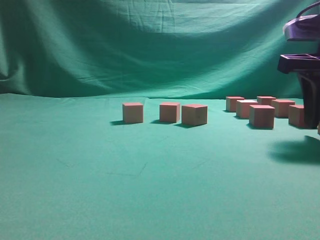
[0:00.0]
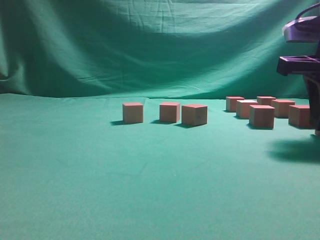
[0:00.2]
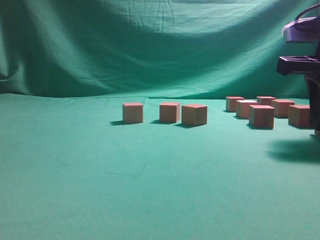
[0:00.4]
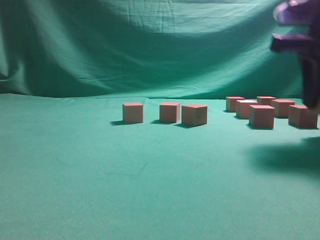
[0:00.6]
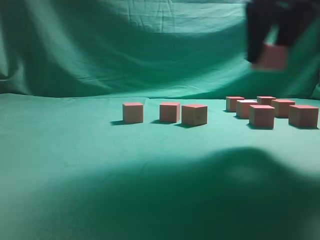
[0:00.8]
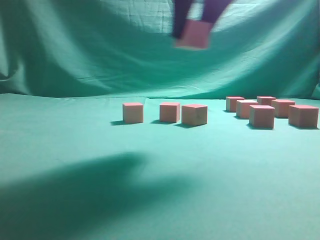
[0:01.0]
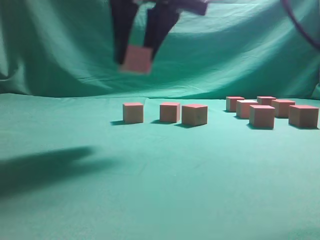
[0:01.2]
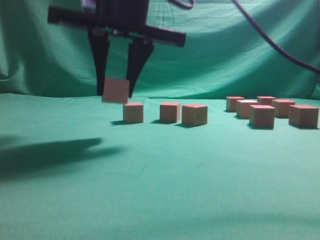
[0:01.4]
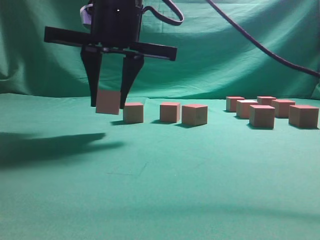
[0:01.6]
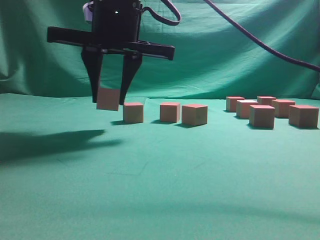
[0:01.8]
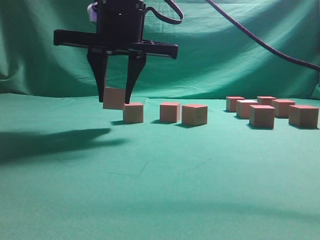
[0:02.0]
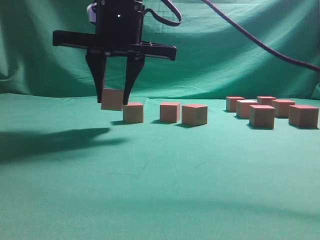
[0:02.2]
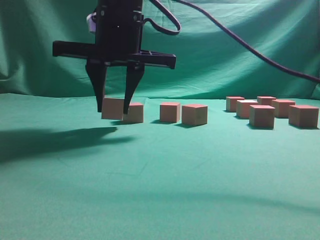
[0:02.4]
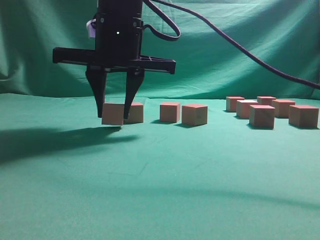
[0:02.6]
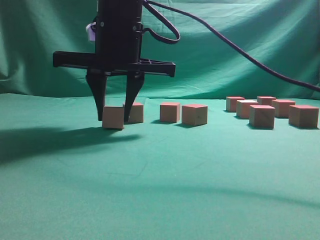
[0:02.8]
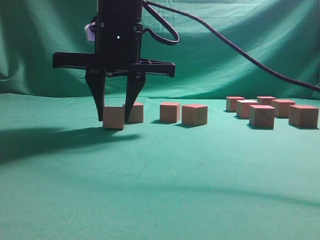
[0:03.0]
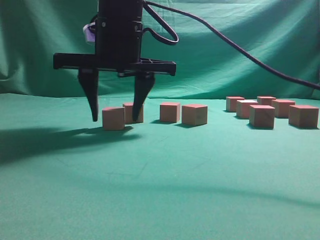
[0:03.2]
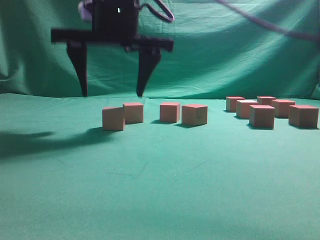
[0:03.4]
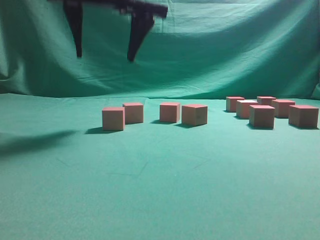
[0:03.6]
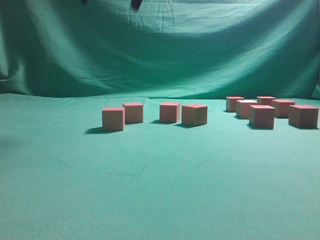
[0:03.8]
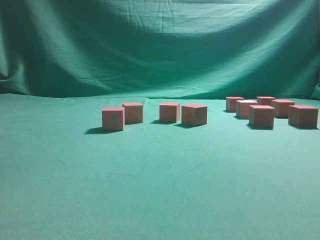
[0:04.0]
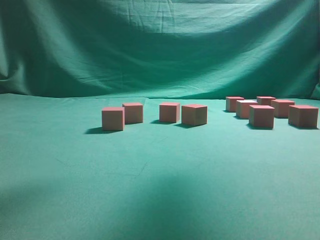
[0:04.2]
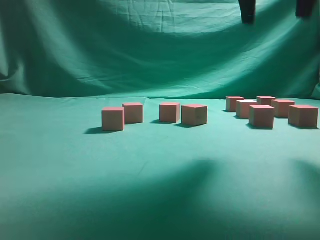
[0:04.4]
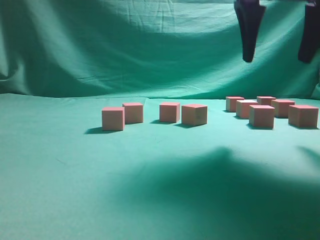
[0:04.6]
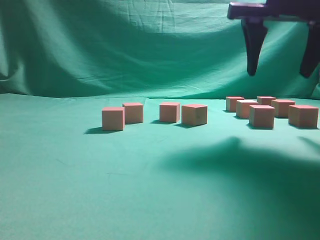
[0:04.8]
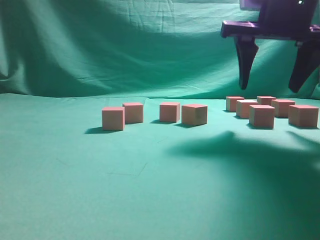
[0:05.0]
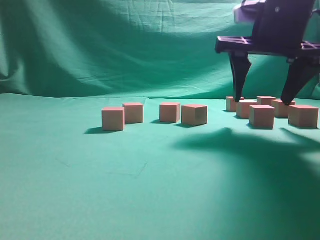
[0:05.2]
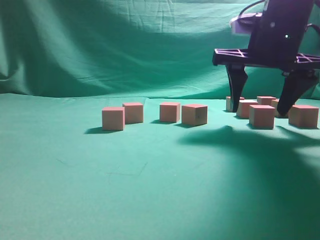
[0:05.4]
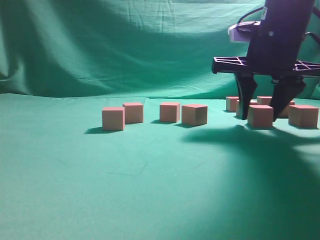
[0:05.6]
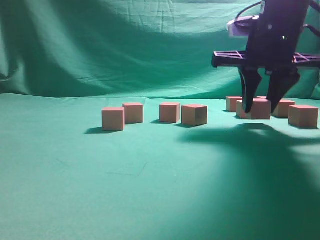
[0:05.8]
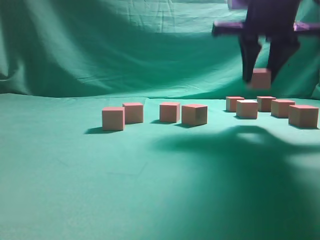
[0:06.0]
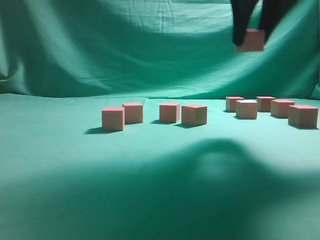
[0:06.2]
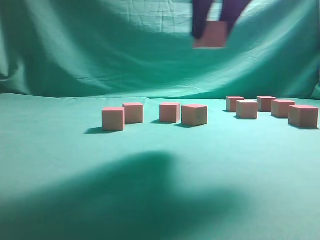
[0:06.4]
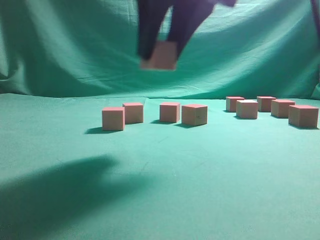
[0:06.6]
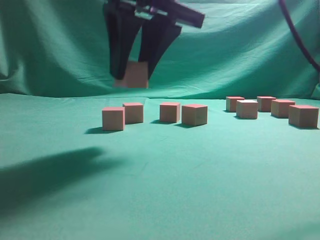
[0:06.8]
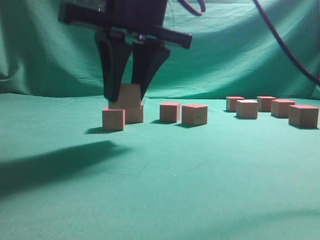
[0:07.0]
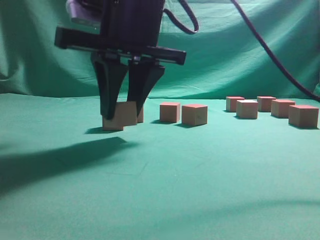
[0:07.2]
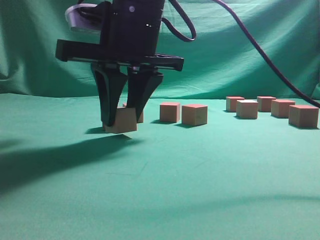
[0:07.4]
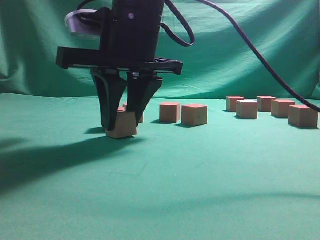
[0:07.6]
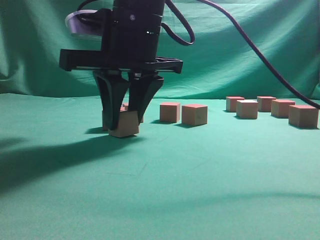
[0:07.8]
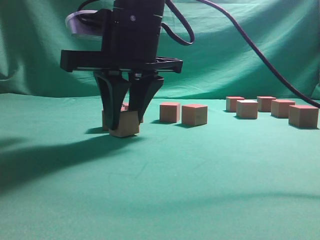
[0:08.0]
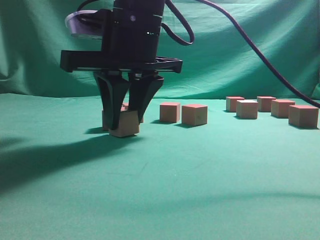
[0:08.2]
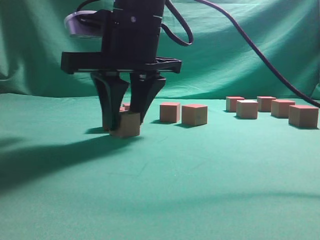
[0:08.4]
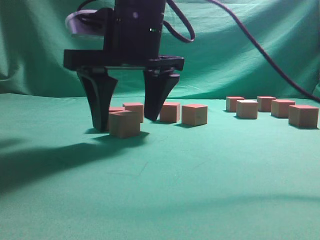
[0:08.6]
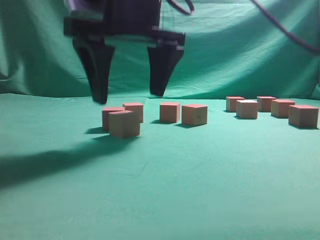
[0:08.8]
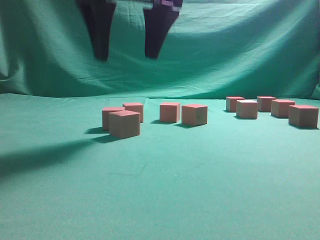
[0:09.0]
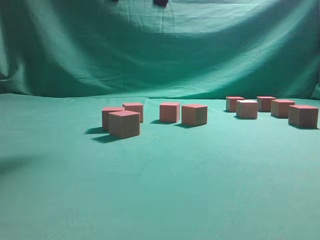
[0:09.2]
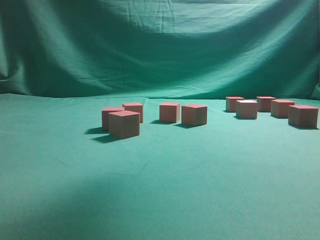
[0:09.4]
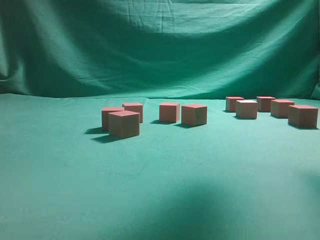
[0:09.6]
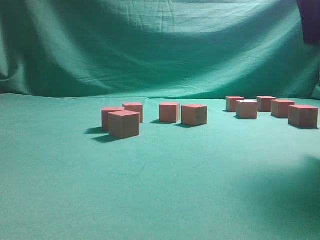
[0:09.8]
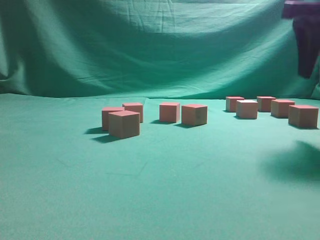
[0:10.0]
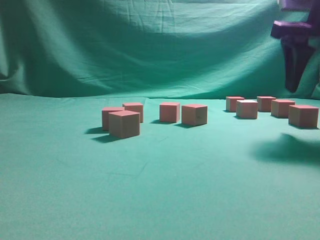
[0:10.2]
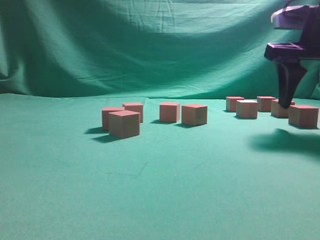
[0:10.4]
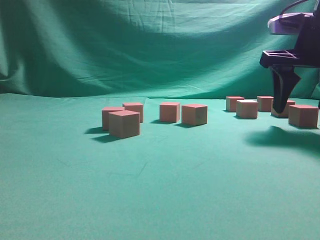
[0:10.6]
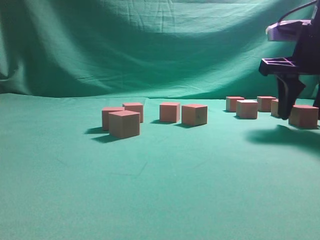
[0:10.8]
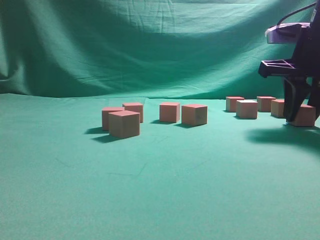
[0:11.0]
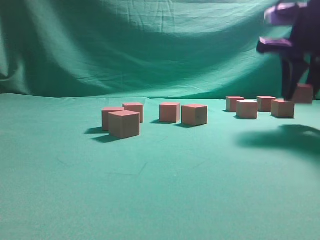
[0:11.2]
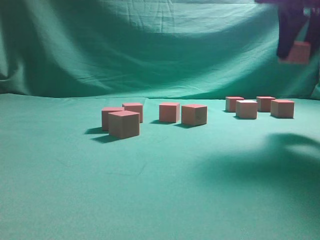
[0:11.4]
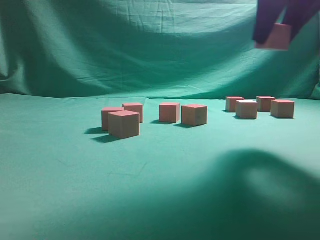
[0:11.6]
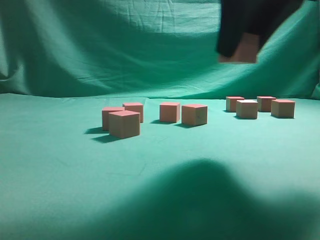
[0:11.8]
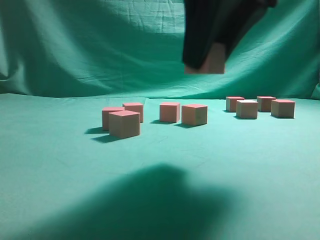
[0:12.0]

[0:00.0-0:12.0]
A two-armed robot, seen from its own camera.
Task of the whole recording: pick up the multiple cubes in two columns one by one and place them in another position on the table.
Step, 0:00.8 to 0:03.6: Place the block at the correct position to assemble the letter S.
Step, 0:03.8 to 0:06.0: Pick up the block on the table.
Step, 0:06.4 to 0:09.0: Place the block at the correct position to assemble the letter S.
Step, 0:09.2 to 0:11.4: Pick up the block on the table.
0:00.0 to 0:01.6: The right gripper goes approximately 30 cm to the left.
0:01.6 to 0:03.0: The grippers stay close to where they were, moving slightly.
0:03.0 to 0:04.4: The right gripper heads to the right and upward, covering roughly 25 cm, and opens.
0:04.4 to 0:06.0: The right gripper travels downward and forward by some 10 cm, and closes its fingers.
0:06.0 to 0:07.6: The right gripper is displaced to the left by about 20 cm.
0:07.6 to 0:09.0: The right gripper moves upward, about 10 cm, and opens up.
0:09.0 to 0:10.4: The right gripper shifts roughly 25 cm to the right.
0:10.4 to 0:12.0: The right gripper shifts about 20 cm to the left and backward, and closes its fingers.

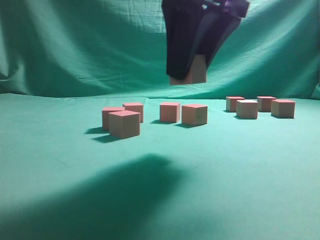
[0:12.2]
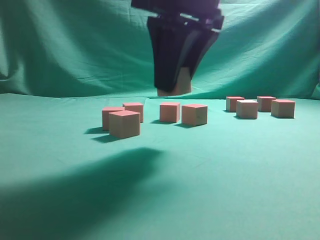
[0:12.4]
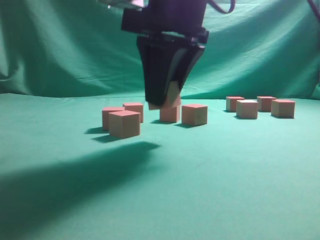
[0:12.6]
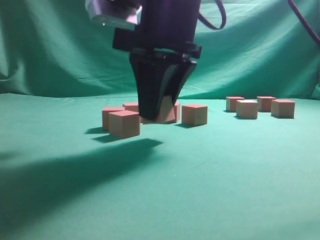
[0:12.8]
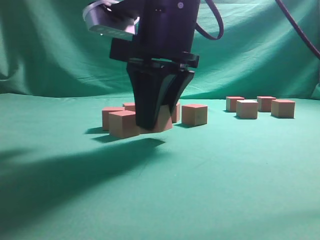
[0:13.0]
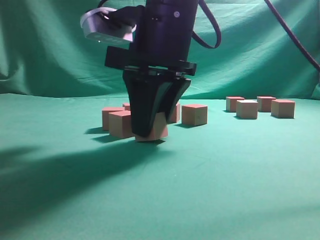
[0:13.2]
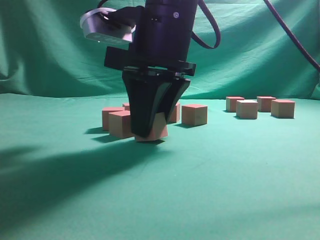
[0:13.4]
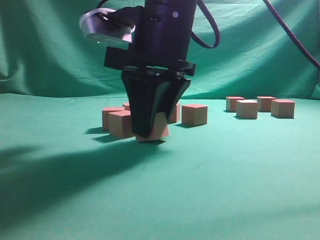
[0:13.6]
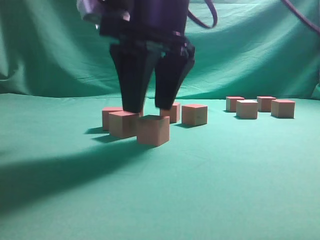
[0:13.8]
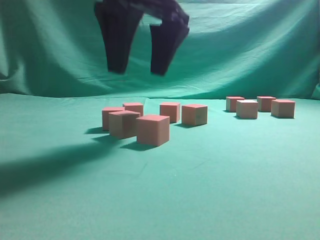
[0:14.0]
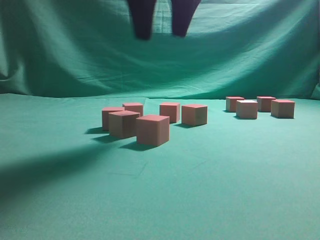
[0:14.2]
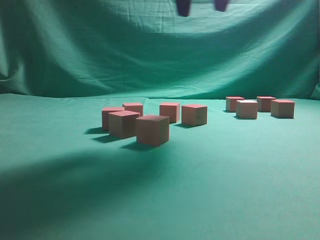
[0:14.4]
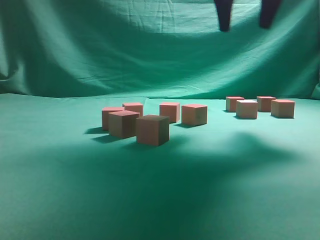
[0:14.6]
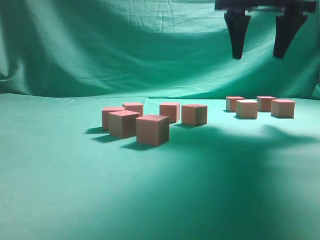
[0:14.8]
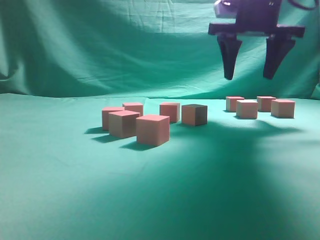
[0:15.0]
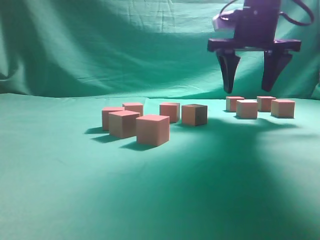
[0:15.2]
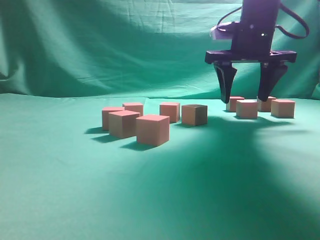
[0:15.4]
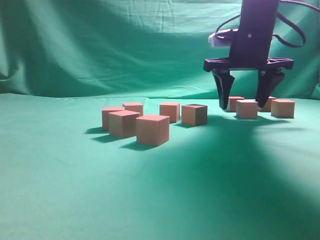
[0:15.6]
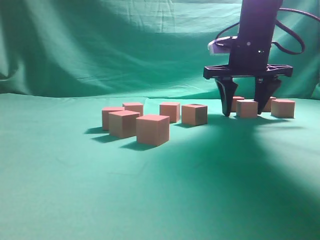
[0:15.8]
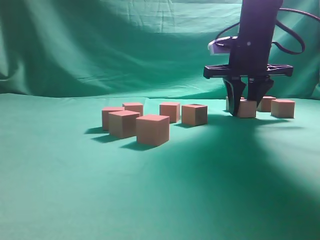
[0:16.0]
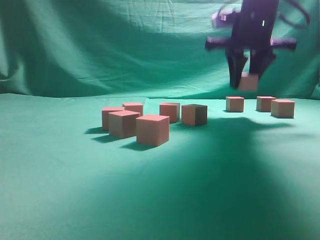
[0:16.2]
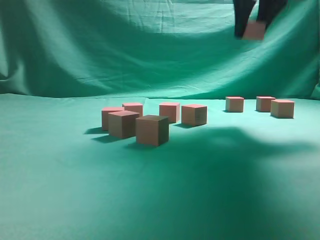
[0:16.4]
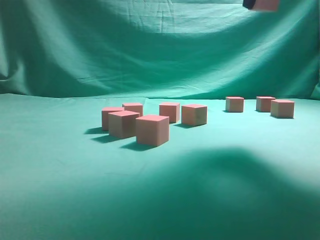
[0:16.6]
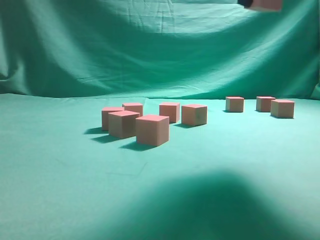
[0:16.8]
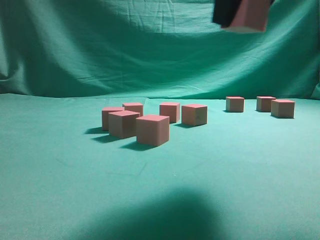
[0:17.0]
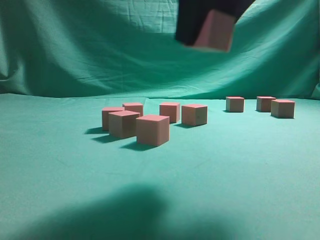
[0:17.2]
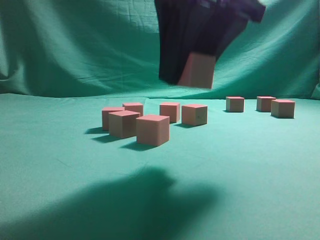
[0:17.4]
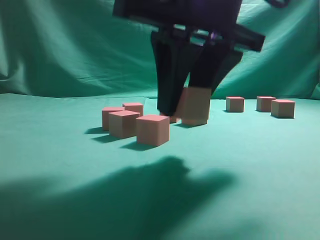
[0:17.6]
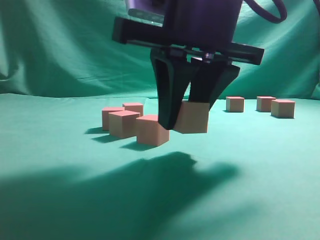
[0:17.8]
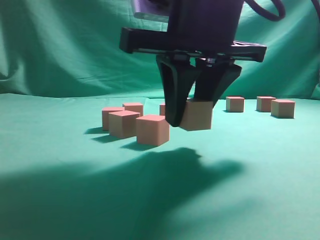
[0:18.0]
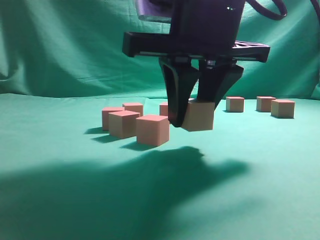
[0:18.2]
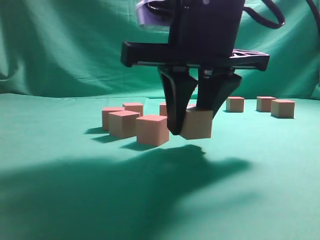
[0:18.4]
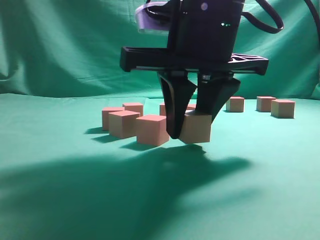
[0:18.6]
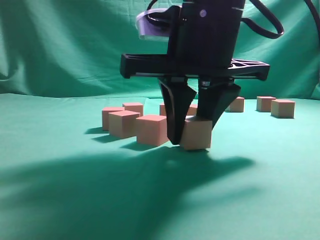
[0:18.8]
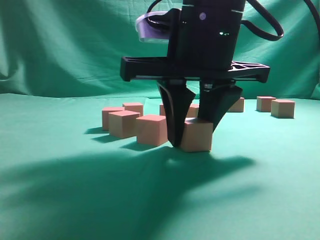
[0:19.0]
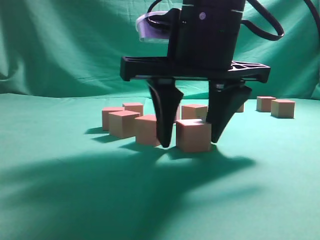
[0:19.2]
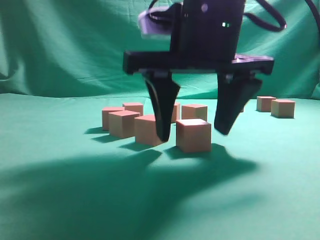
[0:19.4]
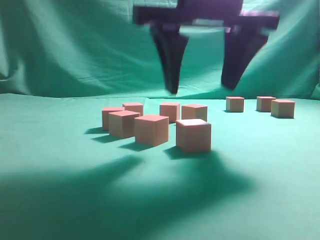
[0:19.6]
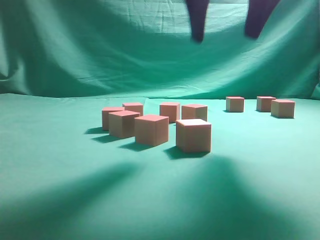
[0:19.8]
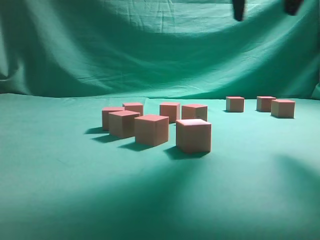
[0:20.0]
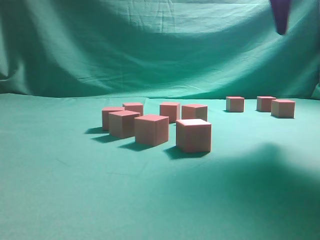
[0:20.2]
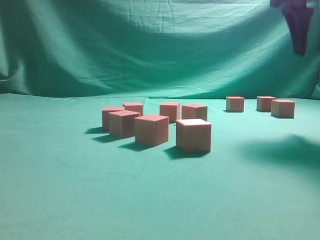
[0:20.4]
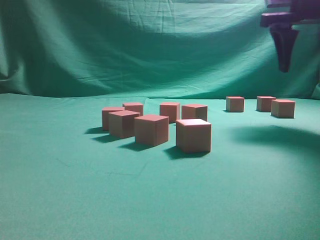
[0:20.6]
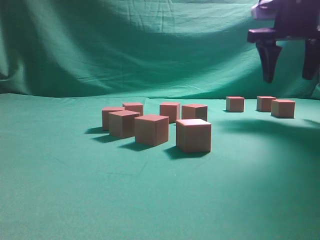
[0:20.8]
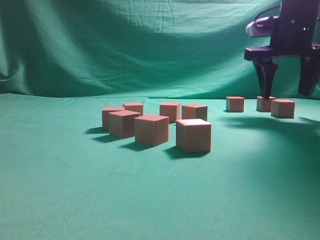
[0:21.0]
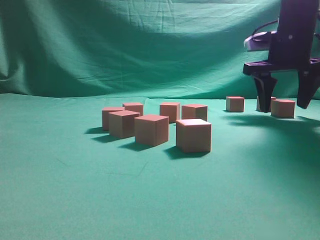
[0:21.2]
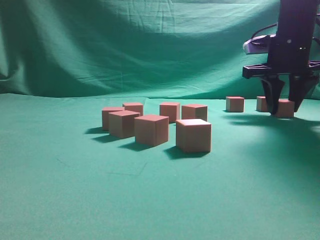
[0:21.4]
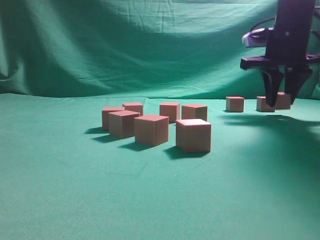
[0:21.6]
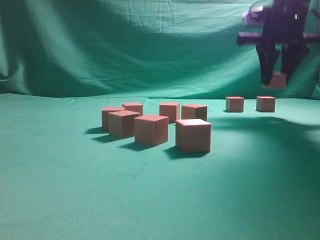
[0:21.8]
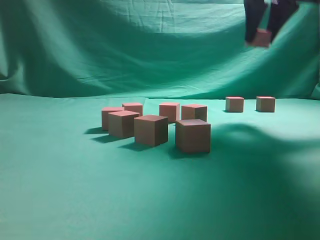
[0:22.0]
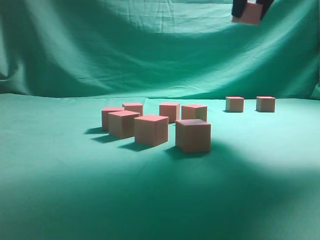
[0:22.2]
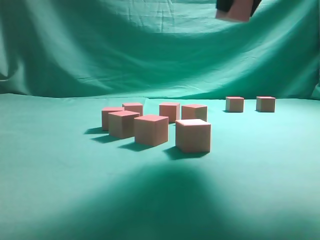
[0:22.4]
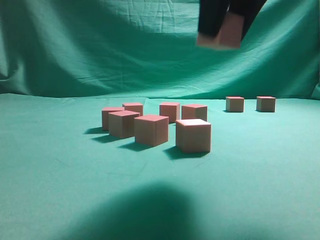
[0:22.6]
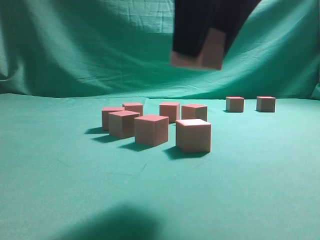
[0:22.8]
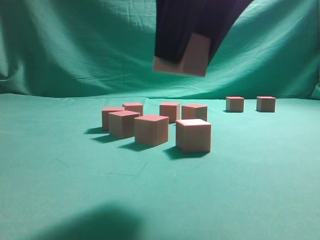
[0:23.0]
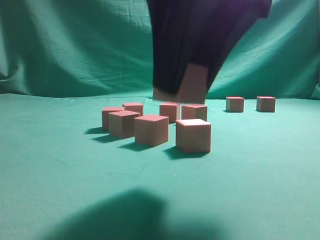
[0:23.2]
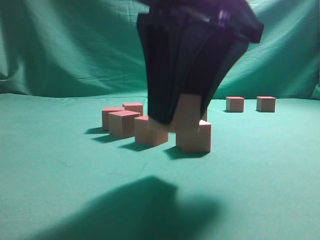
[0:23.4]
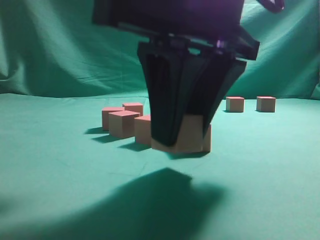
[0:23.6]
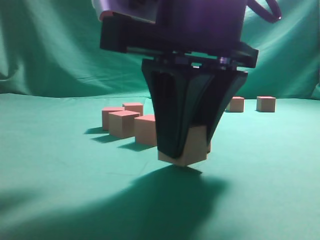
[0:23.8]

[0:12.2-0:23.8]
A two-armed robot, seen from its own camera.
Task of the whole recording: pick up the multiple cubes in two columns one by one and place them in another position on the table.
Step, 0:12.2 to 0:14.0: Place the block at the correct position to assemble the letter S.
Step, 0:14.4 to 0:16.2: Pick up the block on the table.
Step, 0:16.6 to 0:19.6: Place the block at the correct position to assemble the letter S.
Step, 0:20.0 to 0:22.0: Pick up the block on the table.
0:12.2 to 0:13.6: The right gripper is displaced downward and to the left by approximately 10 cm.
0:13.6 to 0:15.0: The right gripper heads to the right, forward and upward, covering approximately 20 cm, and opens its fingers.
0:15.0 to 0:16.6: The right gripper travels upward and backward by approximately 10 cm, and closes.
0:16.6 to 0:18.0: The right gripper travels downward, to the left and backward by roughly 20 cm.
0:18.0 to 0:19.4: The right gripper opens its fingers.
0:19.4 to 0:21.0: The right gripper goes roughly 25 cm forward and to the right.
0:21.0 to 0:22.4: The right gripper travels backward, upward and to the left by approximately 20 cm, and closes up.
0:22.4 to 0:23.8: The right gripper goes approximately 15 cm downward, to the left and backward.
